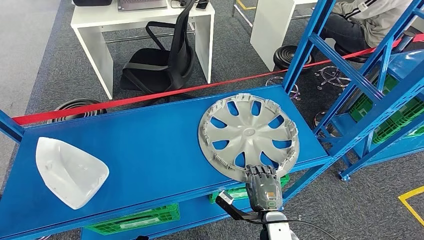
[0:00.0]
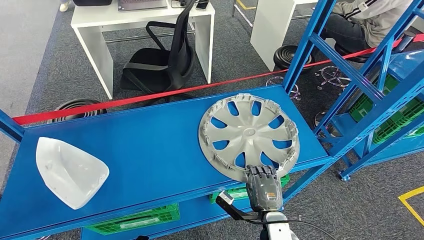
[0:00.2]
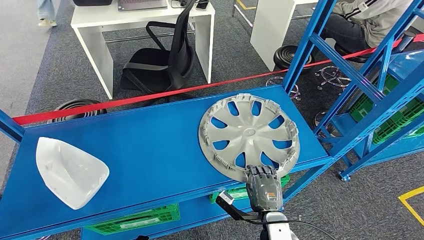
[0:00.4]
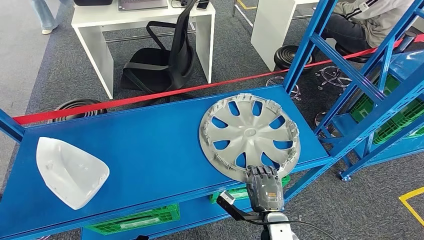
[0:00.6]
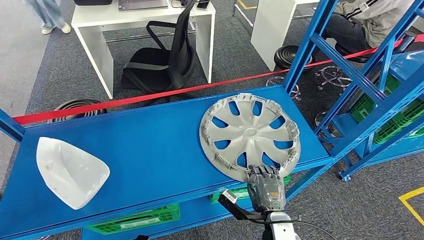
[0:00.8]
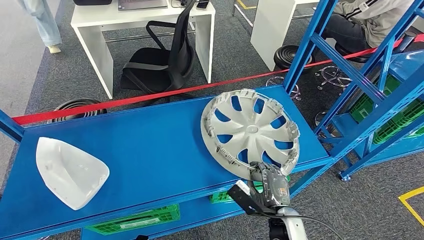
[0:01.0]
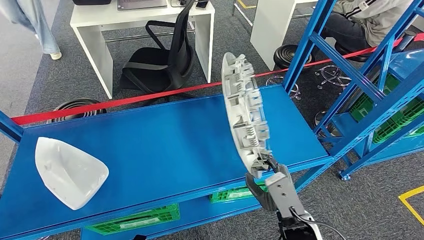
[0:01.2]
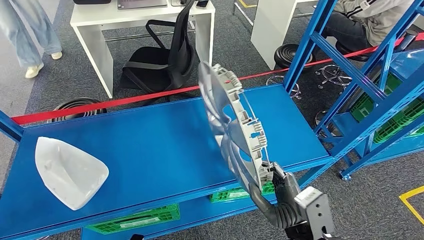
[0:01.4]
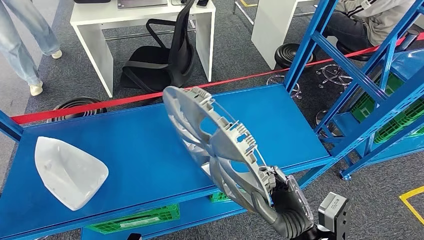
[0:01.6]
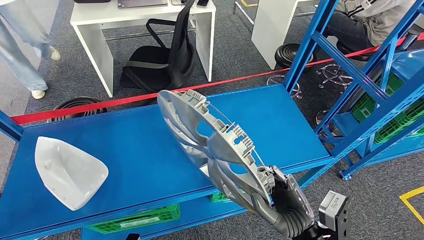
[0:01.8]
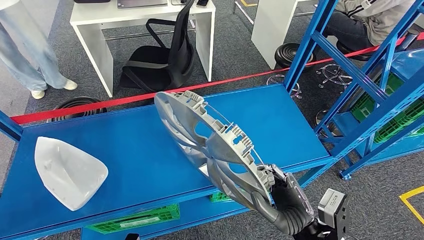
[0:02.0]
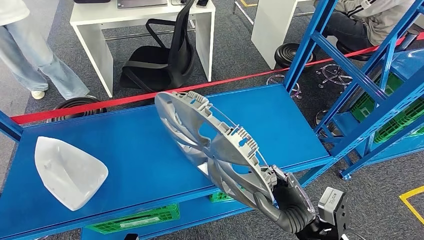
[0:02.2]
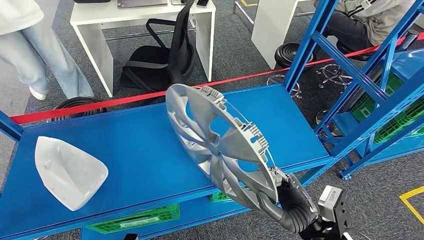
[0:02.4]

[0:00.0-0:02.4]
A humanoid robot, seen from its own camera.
Step, 0:00.0 to 0:02.4: Pick up the large material from the shelf.
0:00.0 to 0:01.2: The right hand shifts roughly 10 cm upward.
